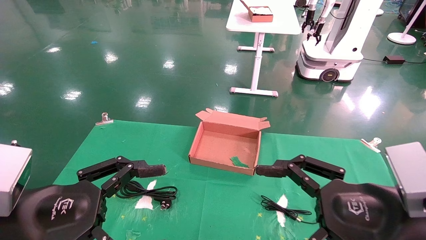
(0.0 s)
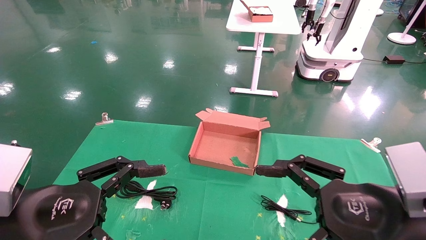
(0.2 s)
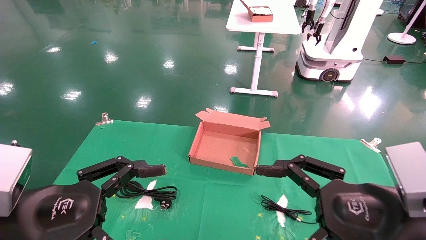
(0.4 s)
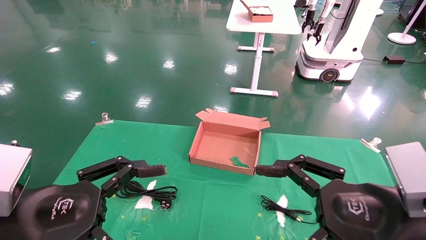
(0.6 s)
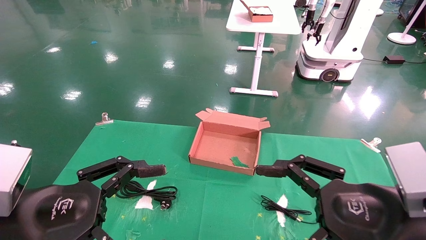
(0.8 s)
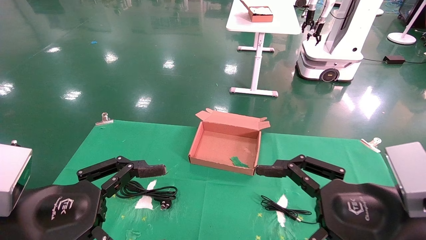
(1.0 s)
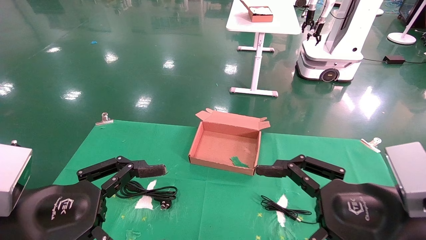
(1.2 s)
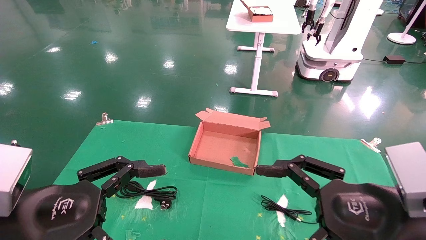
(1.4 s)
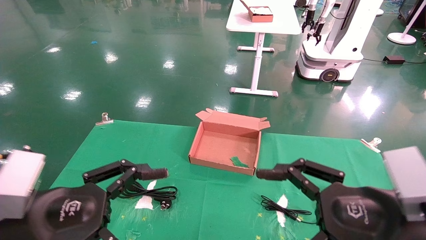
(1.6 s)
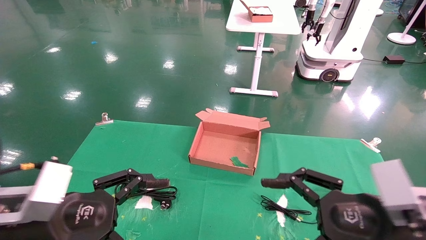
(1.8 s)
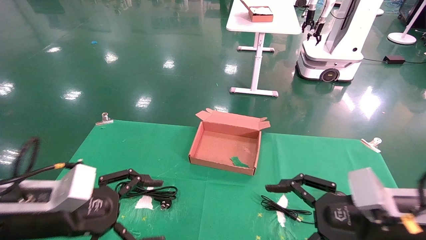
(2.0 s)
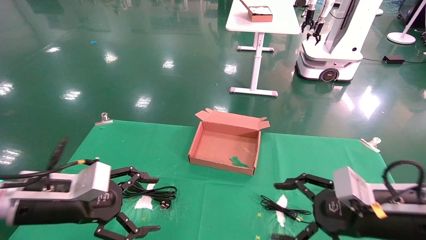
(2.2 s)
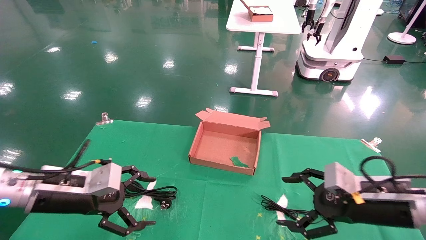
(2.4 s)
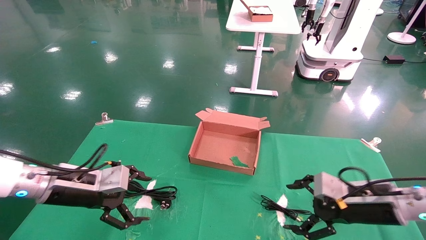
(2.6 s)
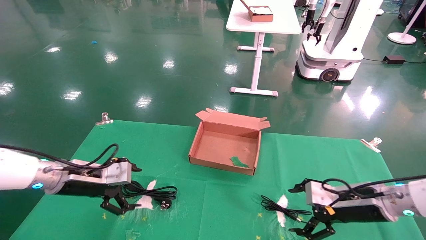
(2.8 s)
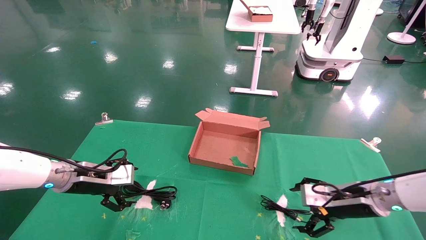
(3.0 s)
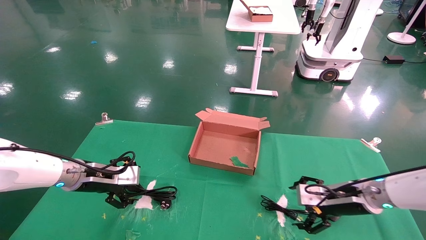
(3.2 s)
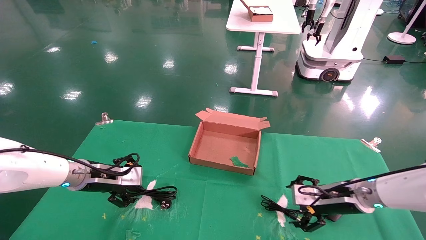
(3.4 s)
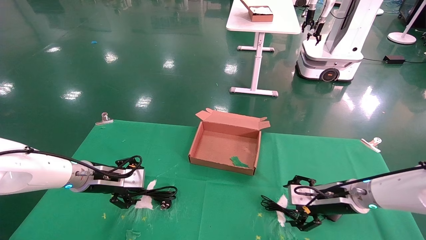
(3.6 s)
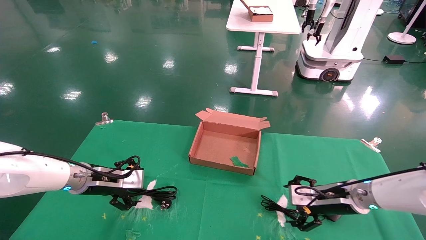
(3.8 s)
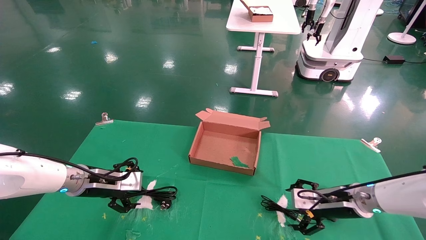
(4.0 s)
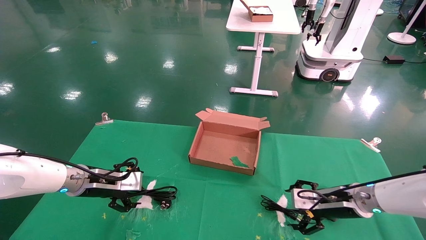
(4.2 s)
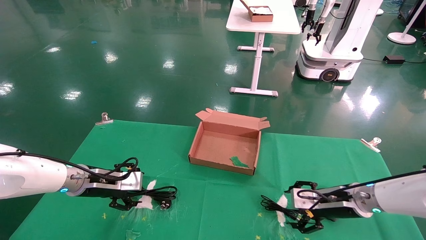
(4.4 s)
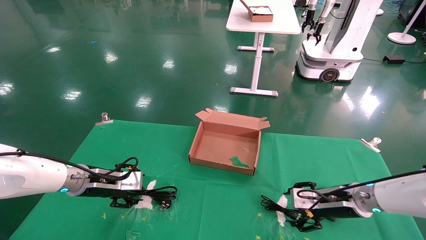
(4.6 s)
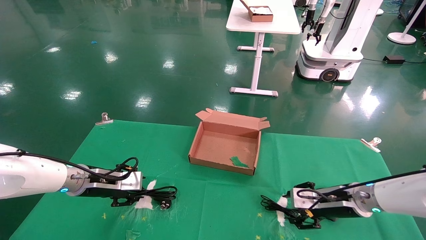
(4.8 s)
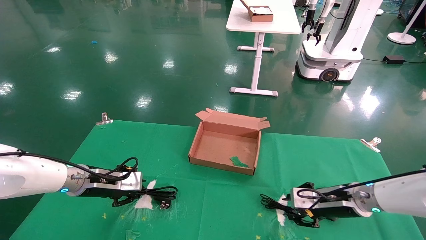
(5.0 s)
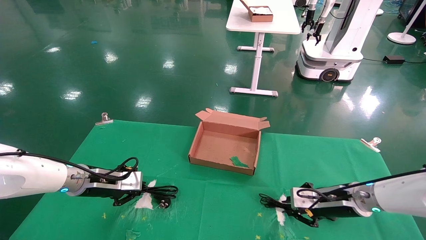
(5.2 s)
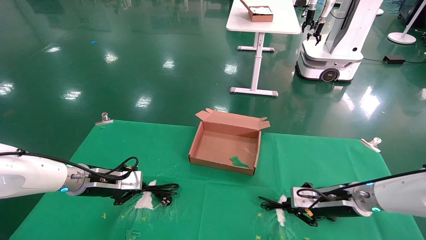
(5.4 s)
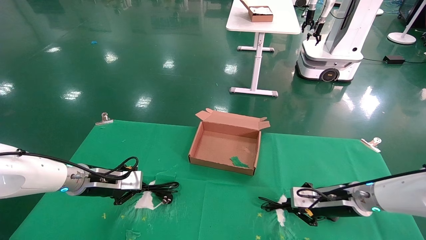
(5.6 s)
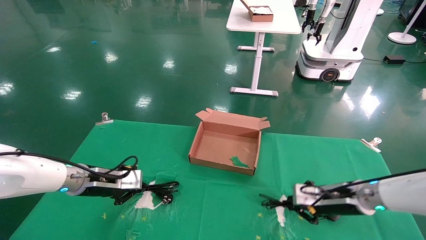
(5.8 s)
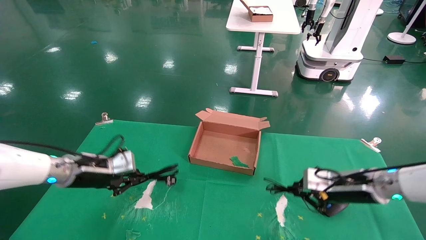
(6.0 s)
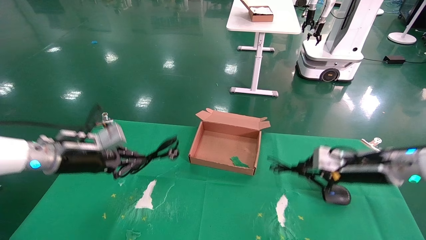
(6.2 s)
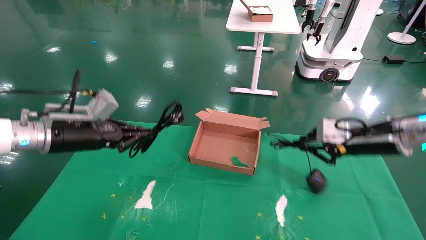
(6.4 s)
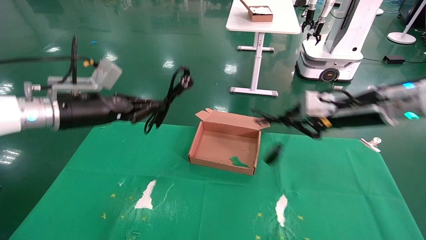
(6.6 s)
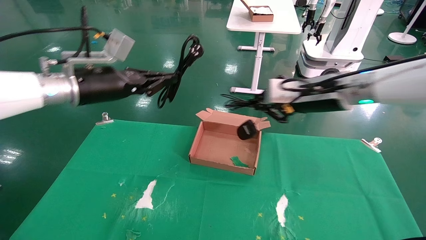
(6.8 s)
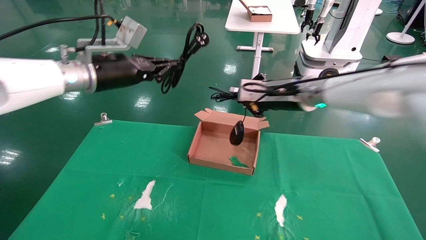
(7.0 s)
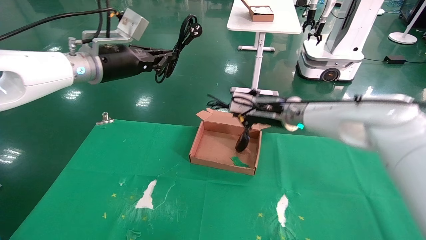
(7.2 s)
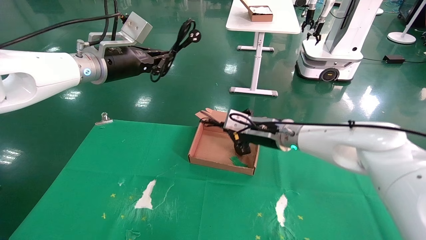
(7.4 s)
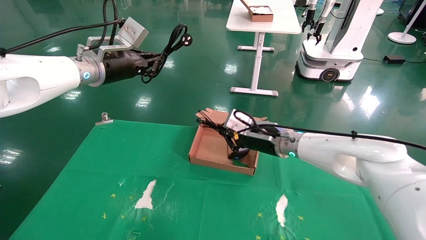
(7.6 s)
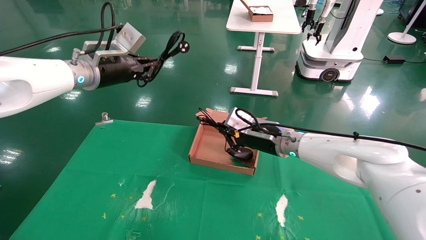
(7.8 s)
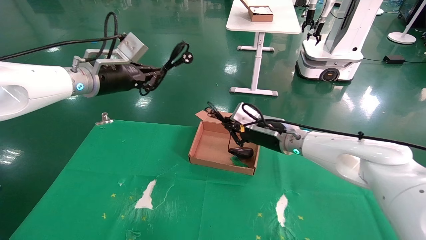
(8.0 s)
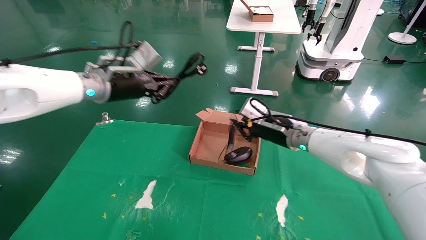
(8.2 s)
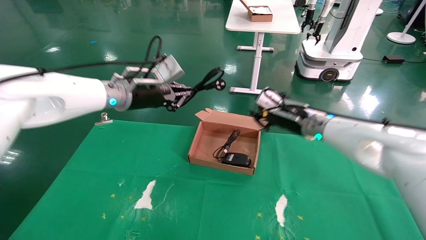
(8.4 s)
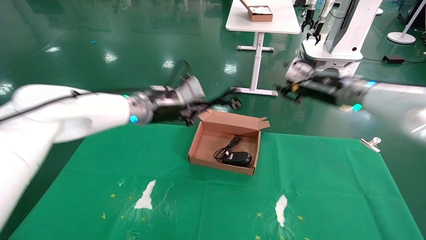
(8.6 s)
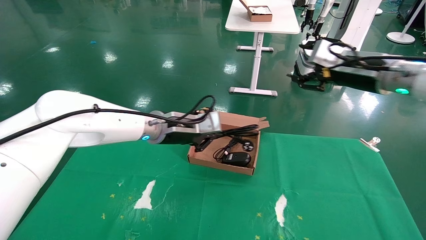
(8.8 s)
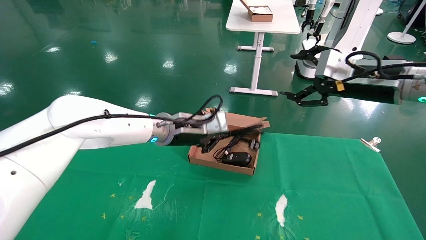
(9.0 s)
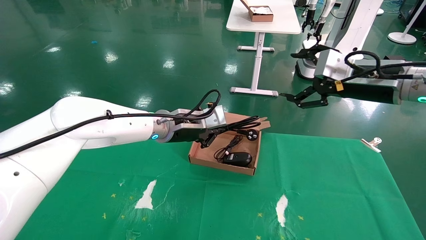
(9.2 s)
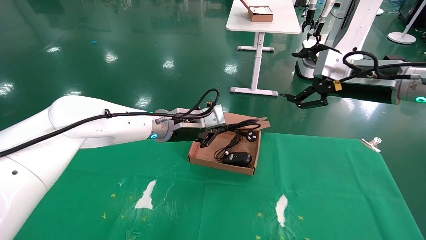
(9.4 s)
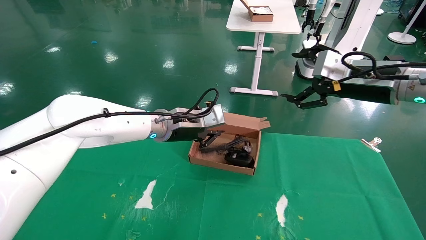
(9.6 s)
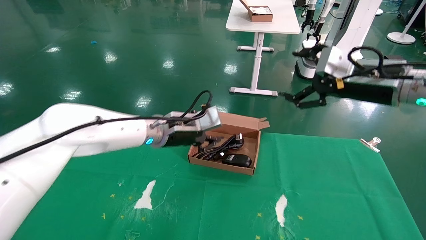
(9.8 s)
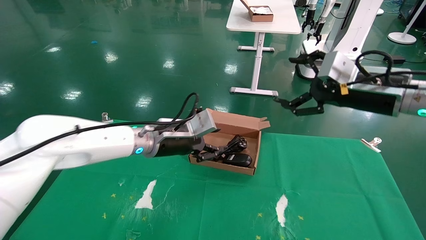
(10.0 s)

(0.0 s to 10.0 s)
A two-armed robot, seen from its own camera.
Step, 2.2 s - 5.8 s: Grab and lift both the mouse and power cord from the accessory packaging area at the same time.
0.0 s - 1.4 s: Neither gripper changes place.
1.4 s - 2.8 s: The right gripper moves forward and downward, about 20 cm; the left gripper moves forward, some 20 cm.
2.8 s - 4.2 s: The right gripper ends up approximately 5 cm from where it was.
4.2 s - 5.8 s: The left gripper closes up; the right gripper closes its fingers.
5.8 s - 7.2 s: The right gripper shifts about 20 cm to the left and upward, while the left gripper travels upward by about 25 cm.
7.2 s - 8.6 s: The left gripper is displaced downward and to the right by roughly 10 cm. Meanwhile the right gripper travels to the right and upward by approximately 10 cm, and opens up.
8.6 s - 10.0 s: The right gripper moves backward, some 10 cm, and opens; the left gripper travels downward by approximately 5 cm.

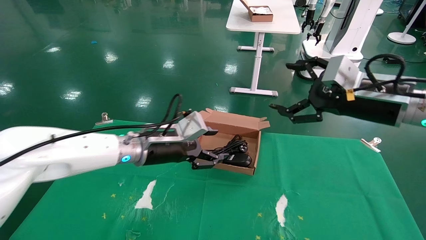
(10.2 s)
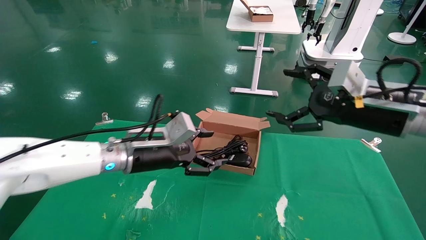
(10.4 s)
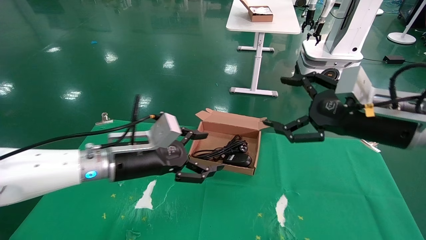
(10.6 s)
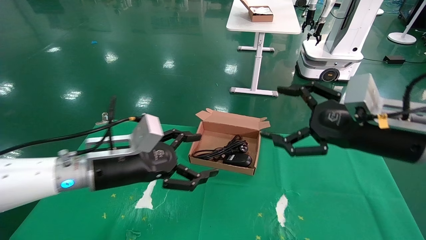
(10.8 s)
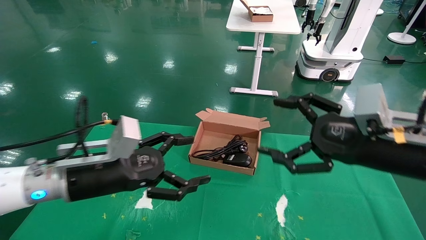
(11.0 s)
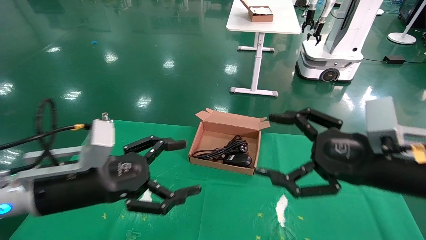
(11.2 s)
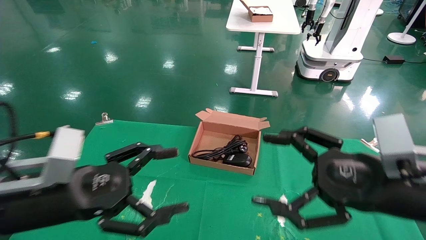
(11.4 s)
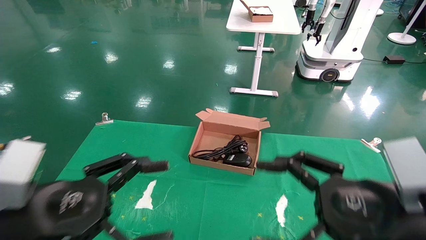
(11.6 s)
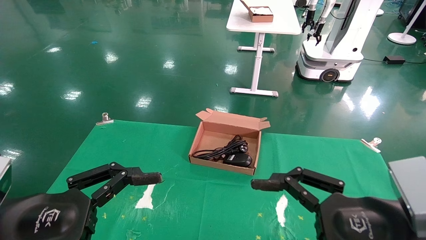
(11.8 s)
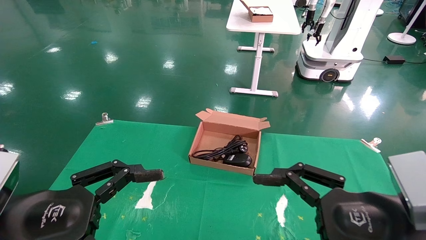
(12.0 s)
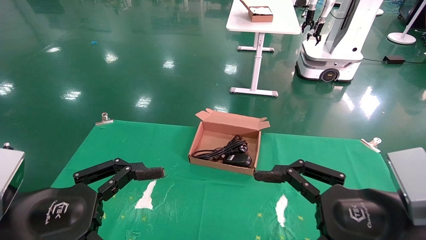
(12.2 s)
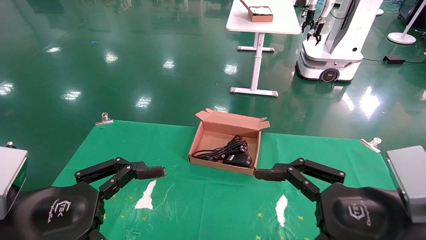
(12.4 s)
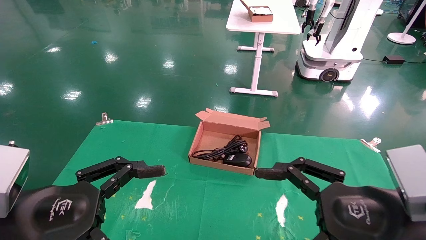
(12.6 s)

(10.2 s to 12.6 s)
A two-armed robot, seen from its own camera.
10.2 s - 11.4 s: The right gripper is displaced backward and downward by roughly 15 cm; the left gripper is displaced backward and to the left by approximately 20 cm, and opens.
